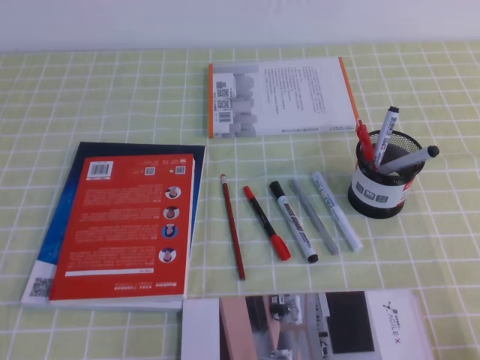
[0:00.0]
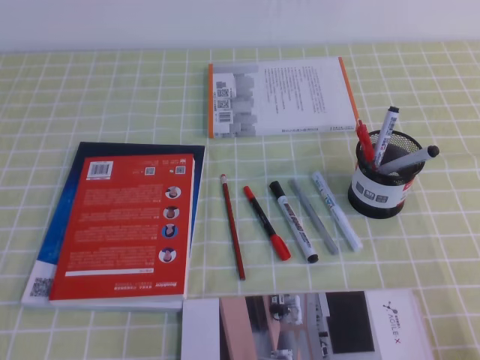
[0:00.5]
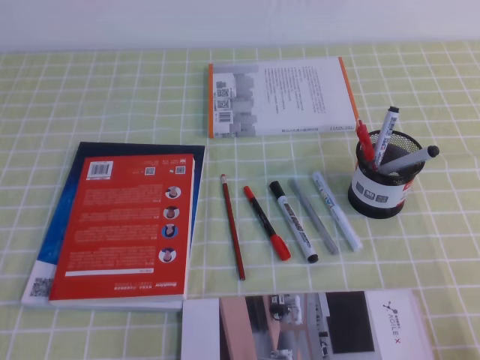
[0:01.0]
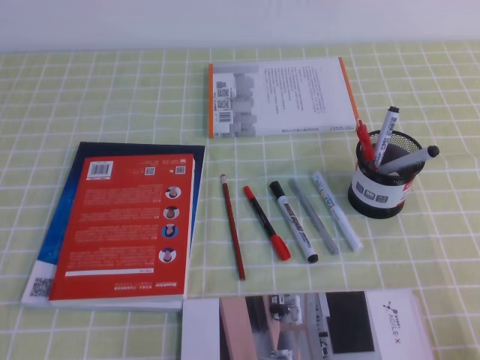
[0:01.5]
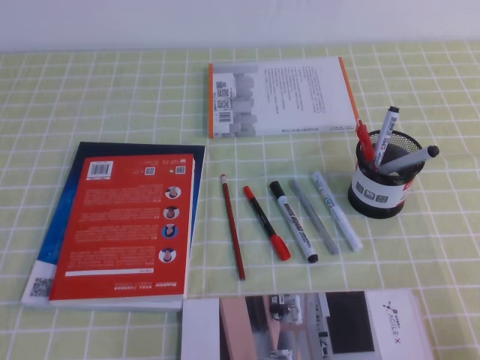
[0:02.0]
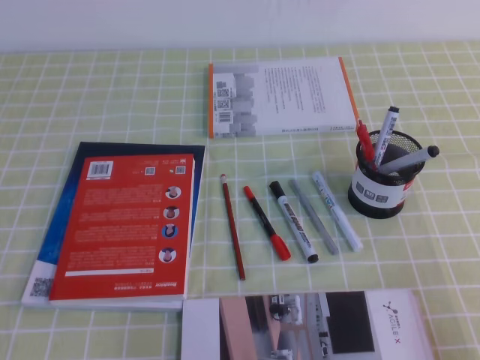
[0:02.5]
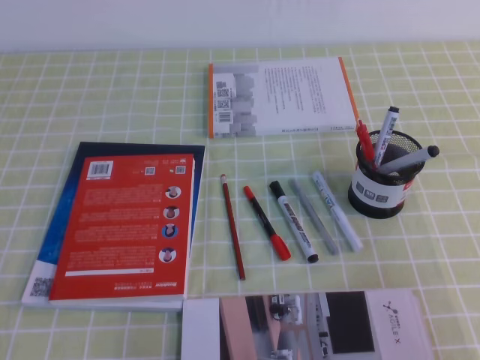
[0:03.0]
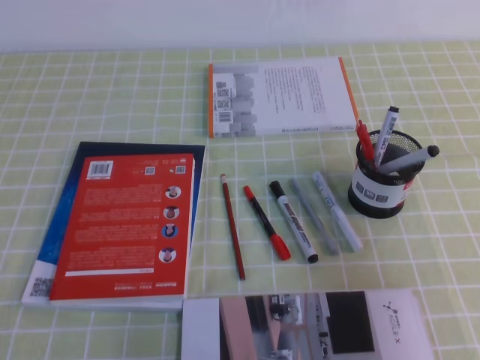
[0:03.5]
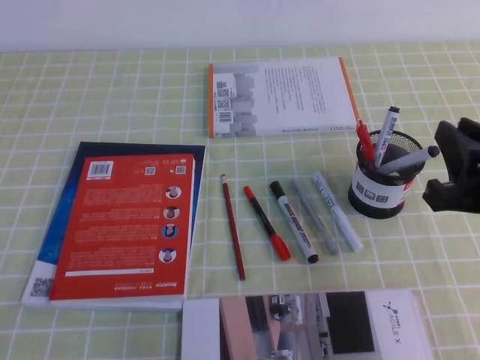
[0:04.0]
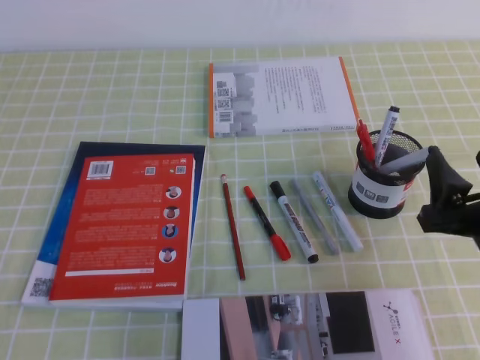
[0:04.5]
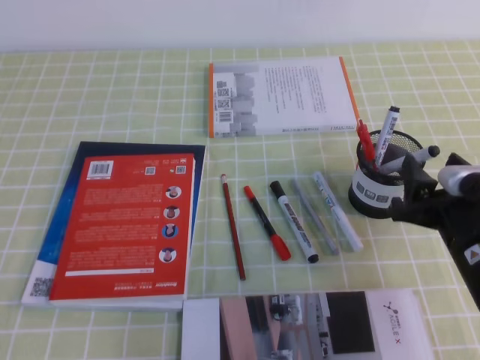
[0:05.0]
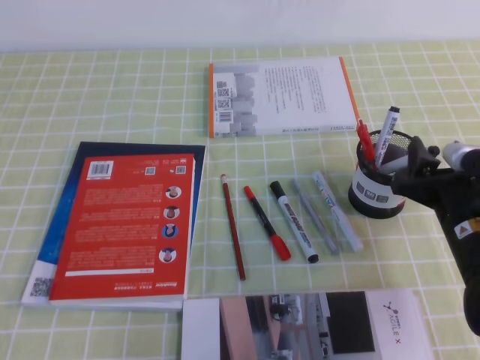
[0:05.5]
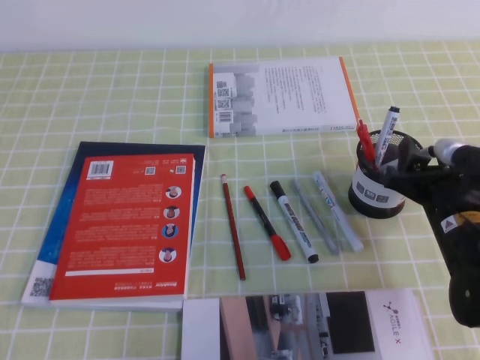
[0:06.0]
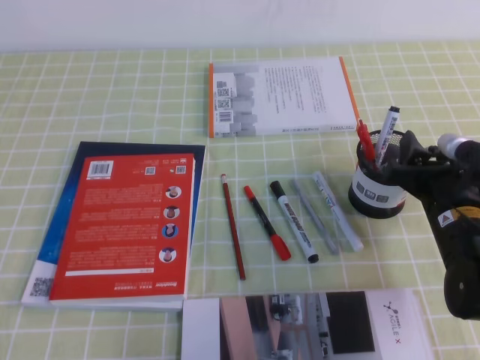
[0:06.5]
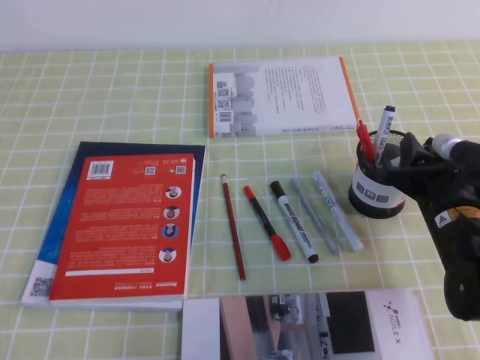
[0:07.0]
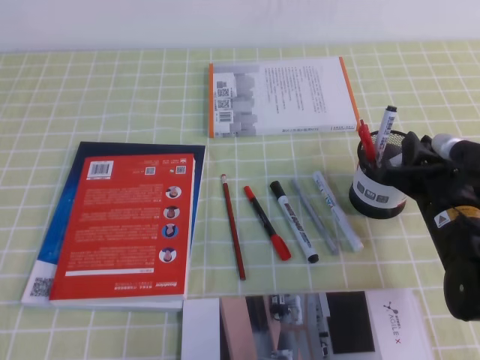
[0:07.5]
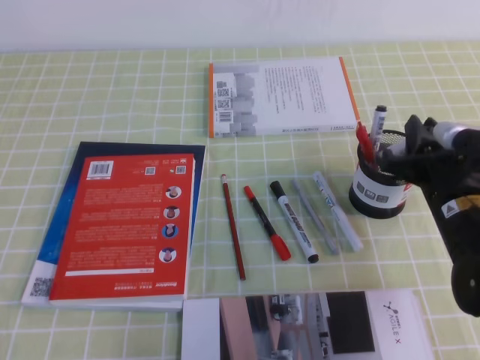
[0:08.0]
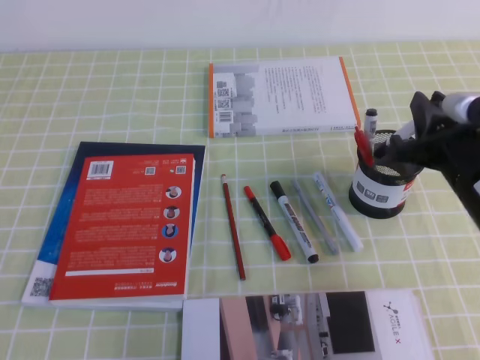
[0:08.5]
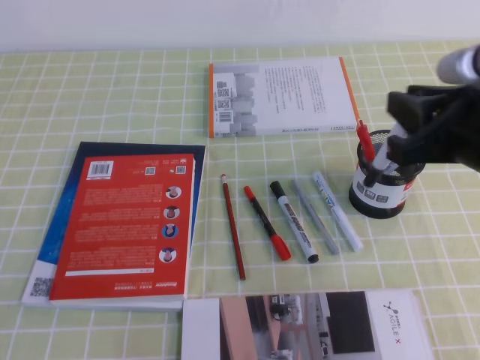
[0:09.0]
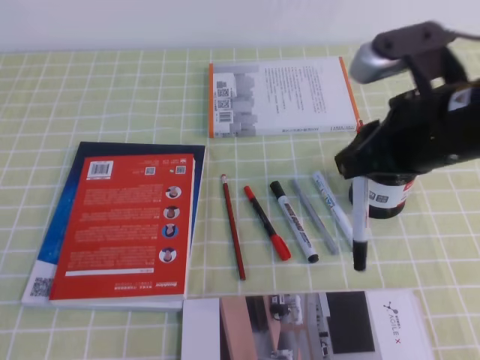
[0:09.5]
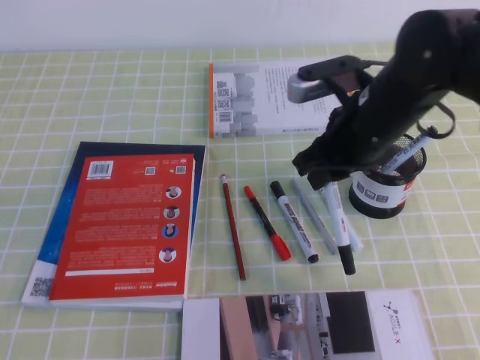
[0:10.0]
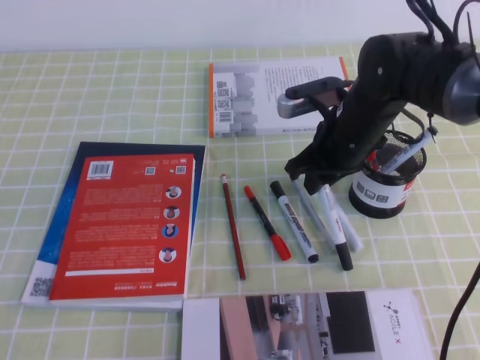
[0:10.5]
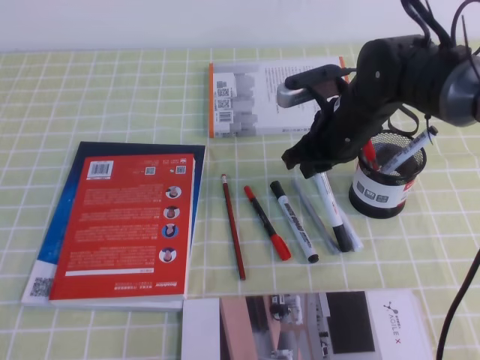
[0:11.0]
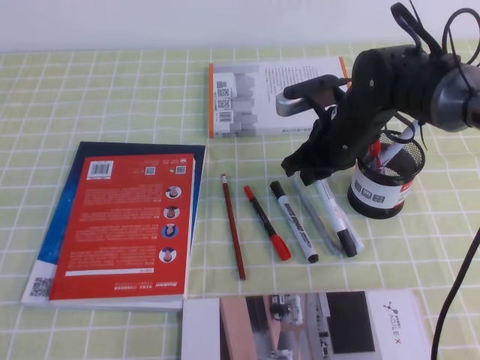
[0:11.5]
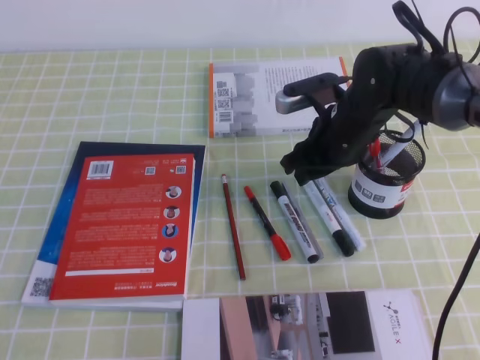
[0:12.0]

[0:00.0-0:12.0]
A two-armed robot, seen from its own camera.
0:02.0 to 0:04.0: The right gripper heads forward, upward and to the left, covering some 20 cm.
0:04.0 to 0:06.0: The right gripper shifts approximately 15 cm downward and forward, and opens its fingers.
0:06.0 to 0:08.0: The right gripper closes up.
0:08.0 to 0:10.0: The right gripper shifts some 15 cm upward and to the left.
0:10.0 to 0:12.0: The right gripper heads forward and downward, covering some 10 cm, and opens up.

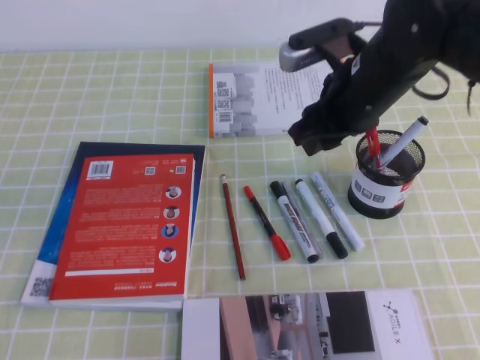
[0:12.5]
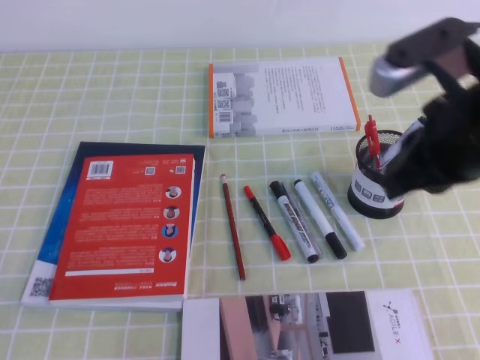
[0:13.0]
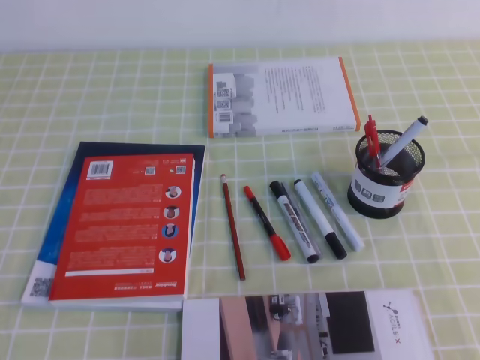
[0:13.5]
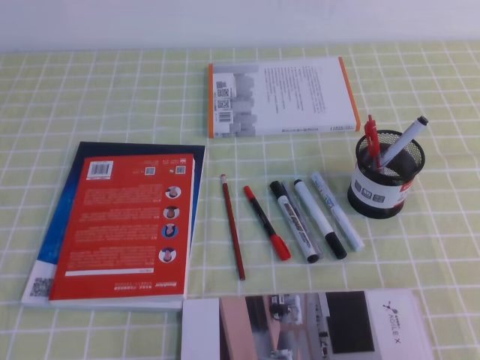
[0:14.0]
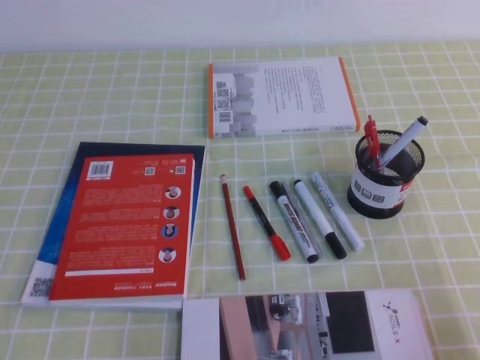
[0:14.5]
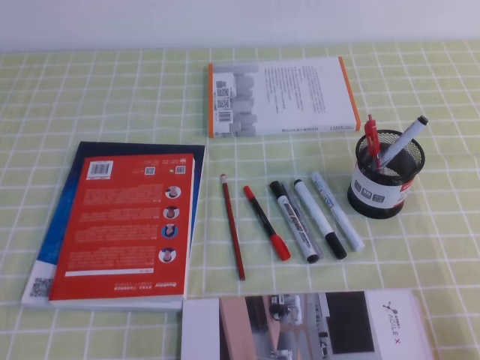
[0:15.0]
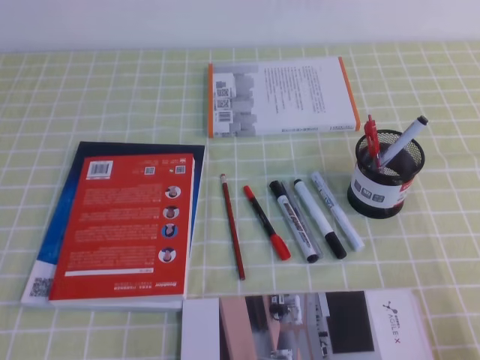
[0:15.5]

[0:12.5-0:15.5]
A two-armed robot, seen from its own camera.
Step, 0:12.5 to 0:15.5: Pick up the pen from the pen holder.
0:12.5 to 0:14.0: The right gripper is displaced backward and to the right by about 30 cm, and closes up.
0:14.0 to 0:15.5: The right gripper goes some 10 cm downward.
